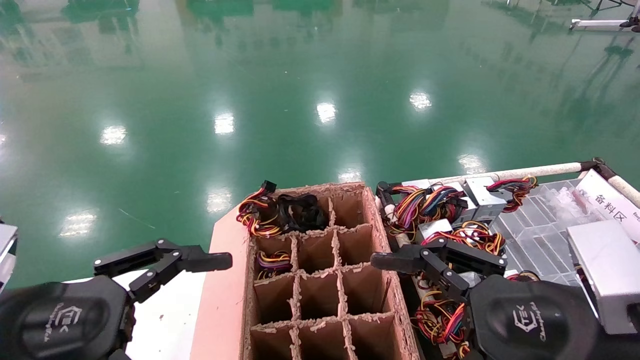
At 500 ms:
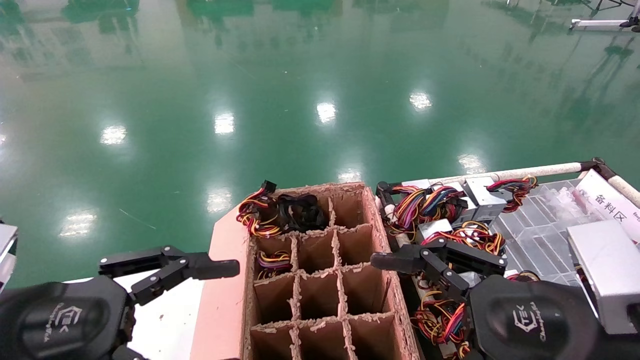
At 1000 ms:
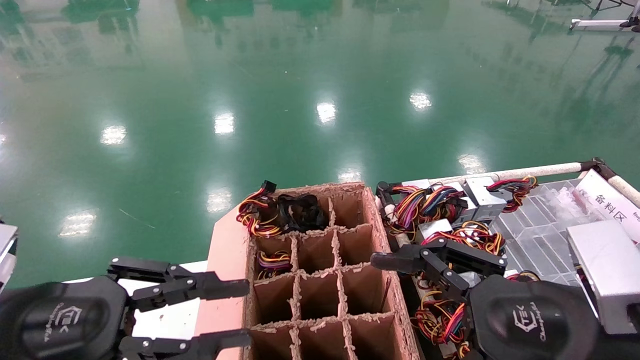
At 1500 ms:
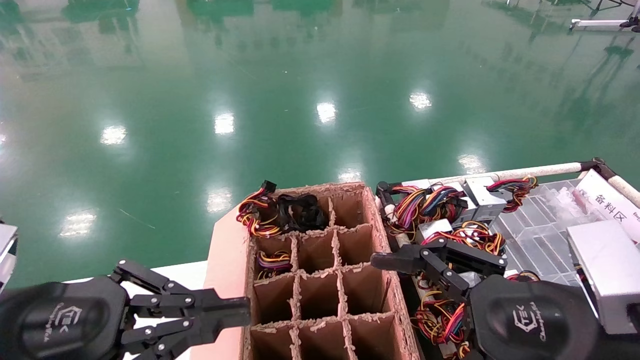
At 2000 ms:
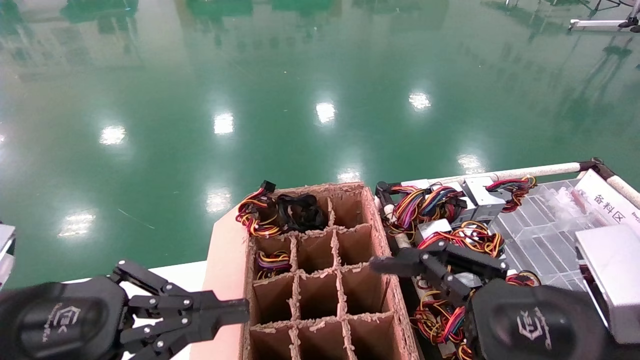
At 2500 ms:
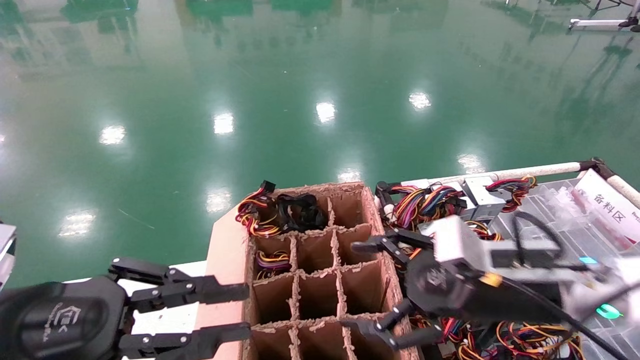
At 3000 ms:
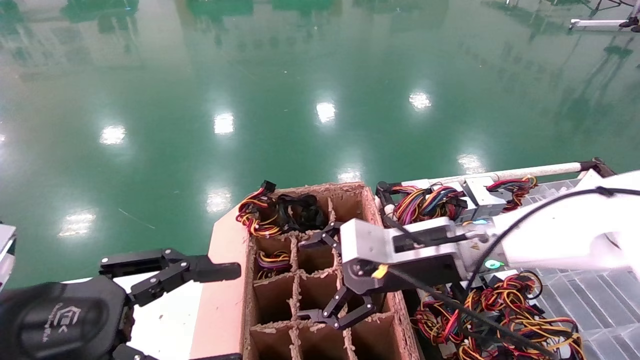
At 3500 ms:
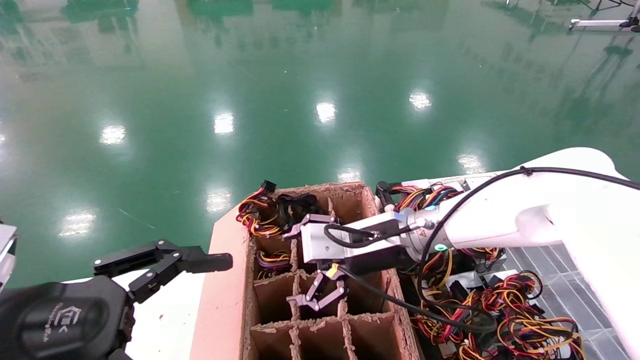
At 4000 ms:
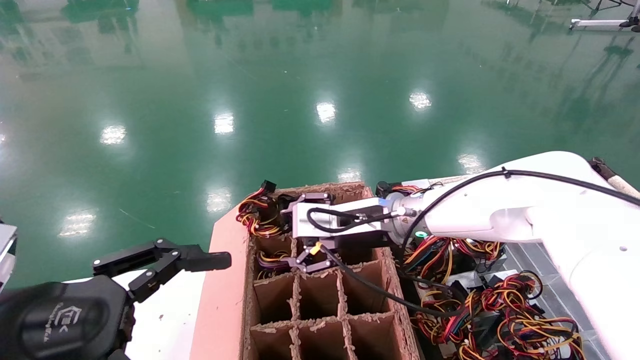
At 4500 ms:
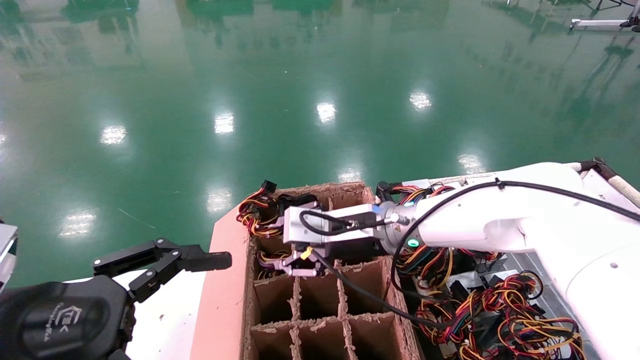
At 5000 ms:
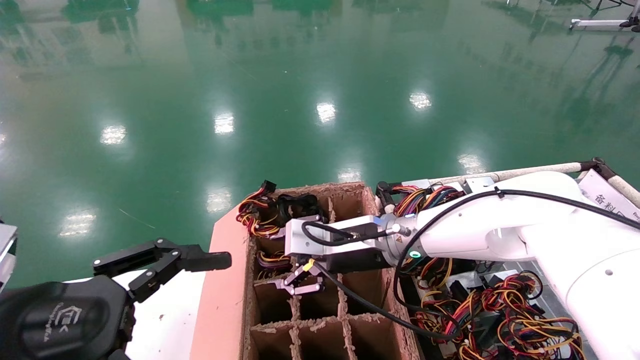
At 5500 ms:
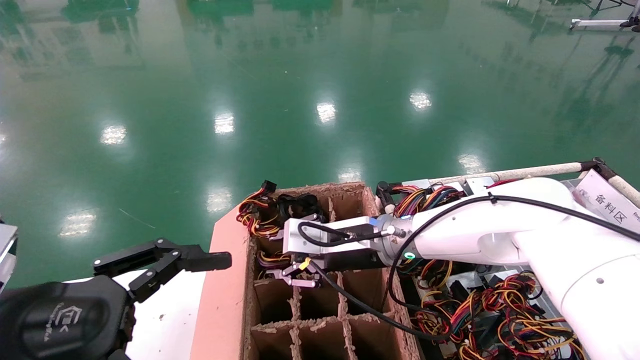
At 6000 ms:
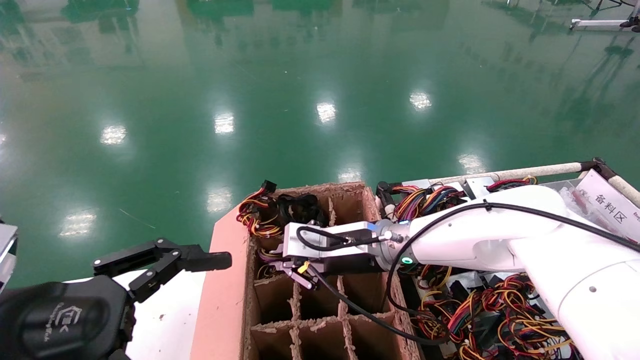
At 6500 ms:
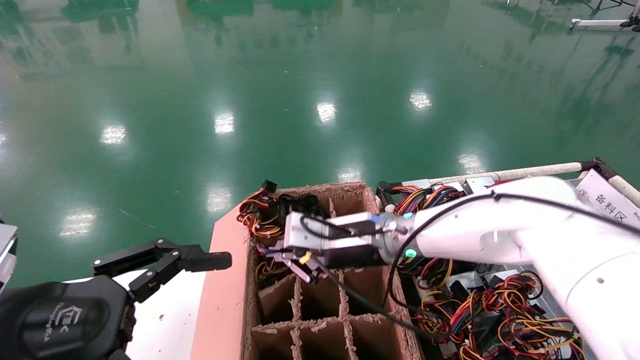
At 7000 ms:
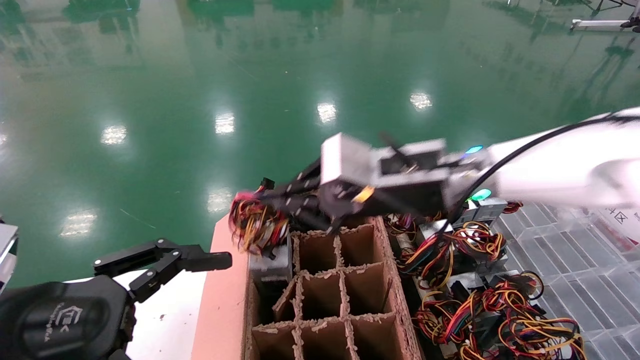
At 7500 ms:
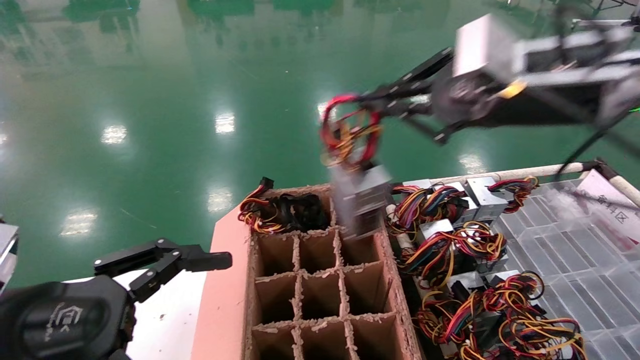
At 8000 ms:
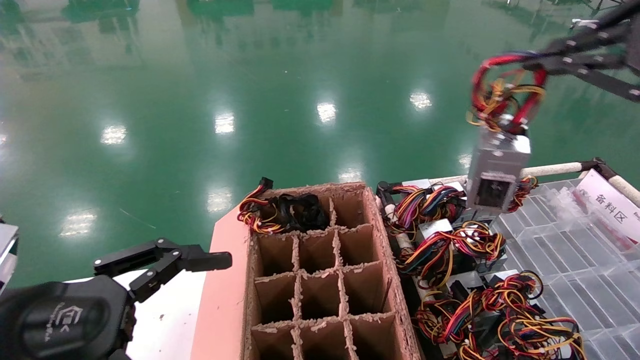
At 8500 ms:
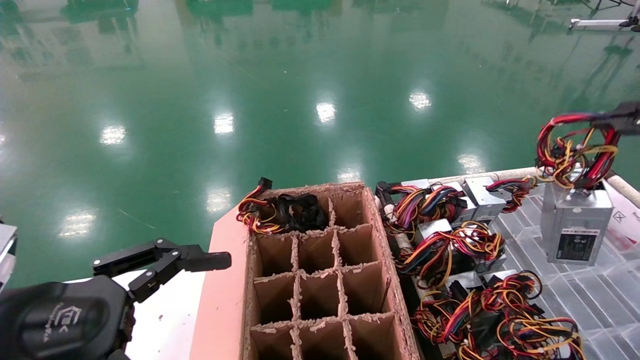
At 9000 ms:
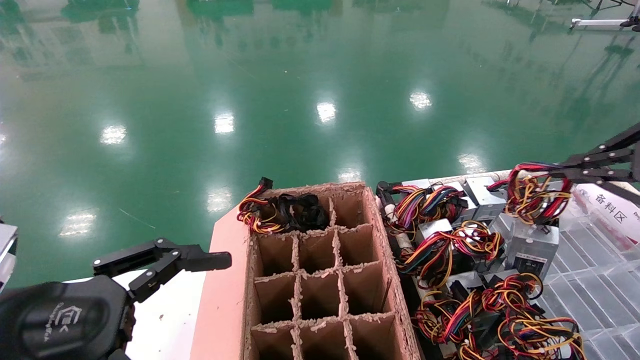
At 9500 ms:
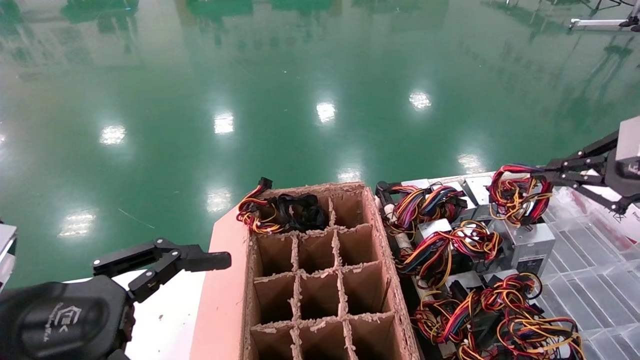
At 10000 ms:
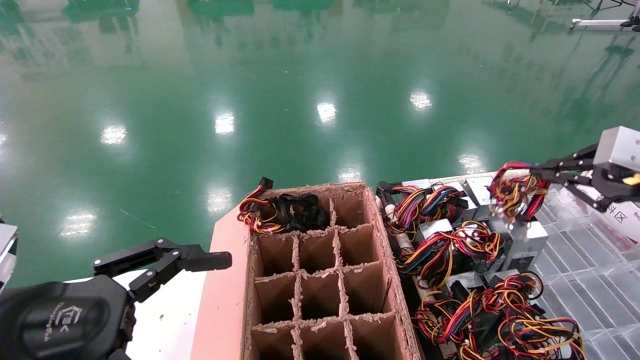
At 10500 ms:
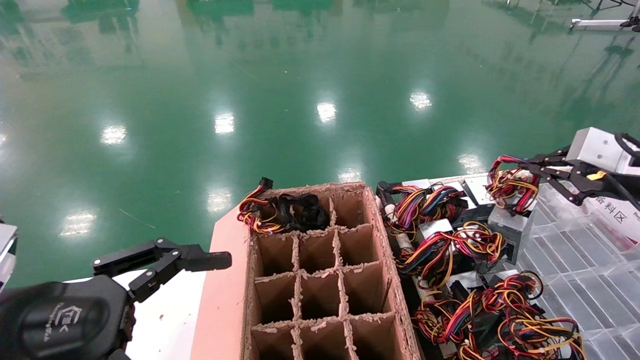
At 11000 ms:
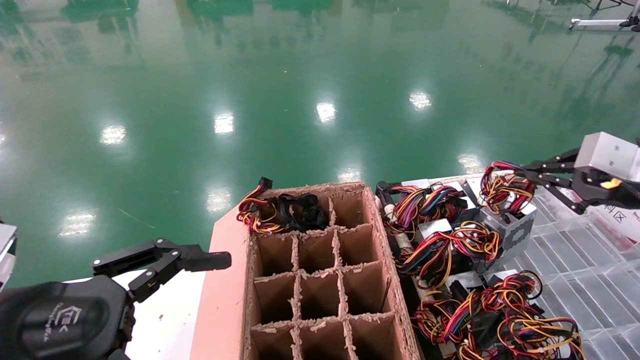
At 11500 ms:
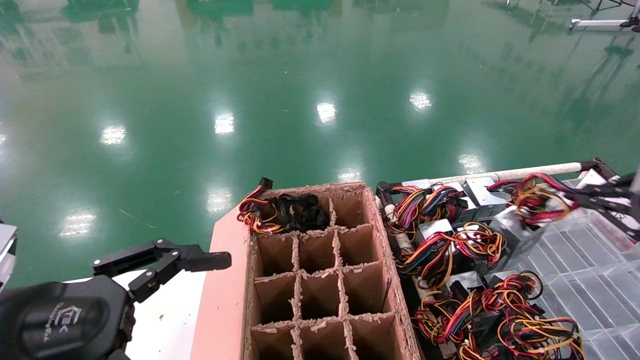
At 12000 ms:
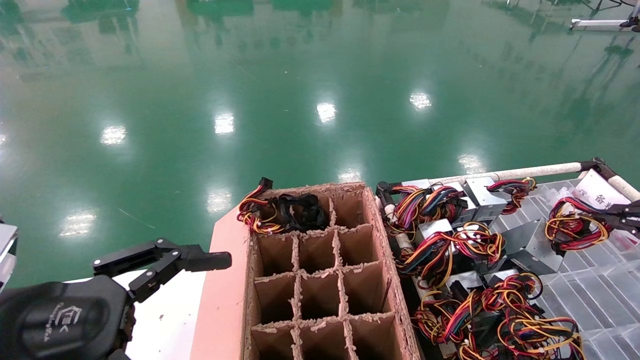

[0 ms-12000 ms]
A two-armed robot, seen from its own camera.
Step, 2500 ms to 6500 ms: Grab and lift the power supply from the large box.
0 ms to 2000 ms: The left gripper closes up.
2000 ms to 4000 ms: The left gripper opens up. The right gripper is displaced forward and to the left by about 25 cm.
4000 ms to 6000 ms: The right gripper closes.
6000 ms to 8000 ms: The right gripper is displaced to the right, upward and backward by approximately 40 cm.
8000 ms to 10000 ms: The right gripper heads downward, forward and to the right, covering about 20 cm.
10000 ms to 12000 ms: The right gripper moves to the right, approximately 5 cm.

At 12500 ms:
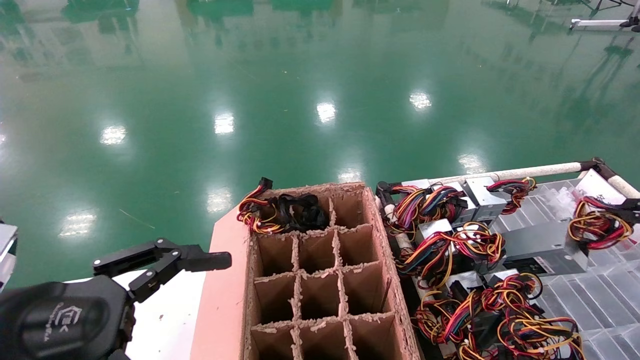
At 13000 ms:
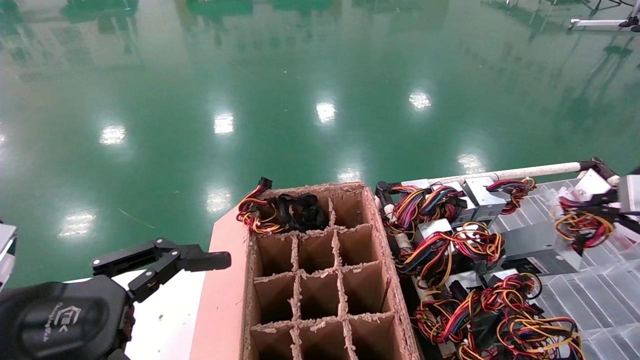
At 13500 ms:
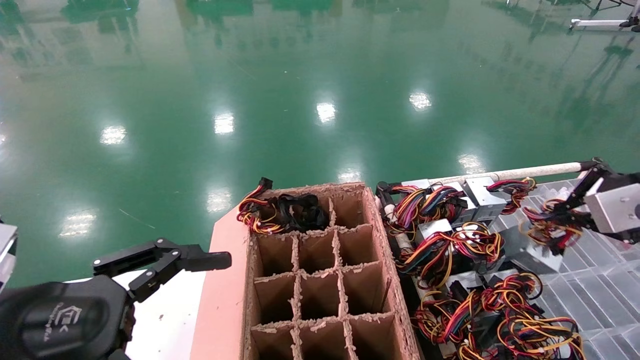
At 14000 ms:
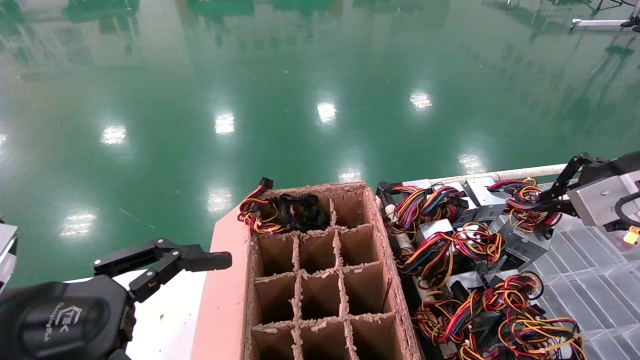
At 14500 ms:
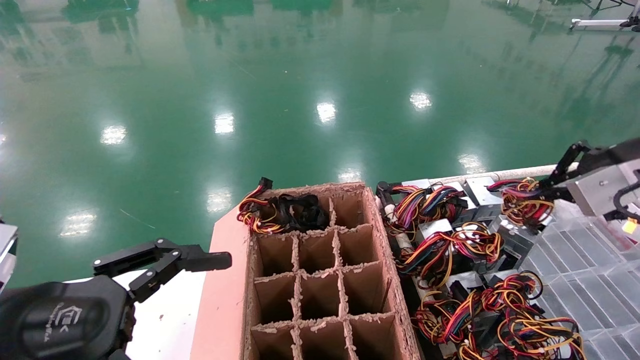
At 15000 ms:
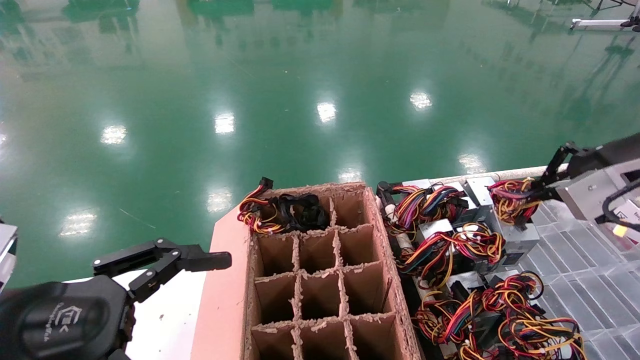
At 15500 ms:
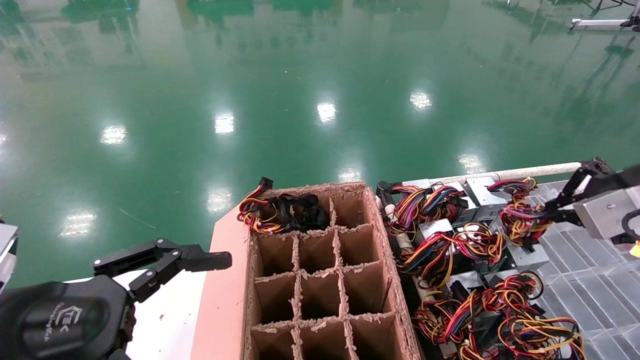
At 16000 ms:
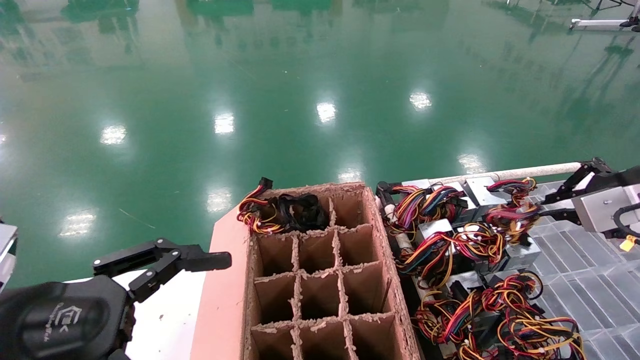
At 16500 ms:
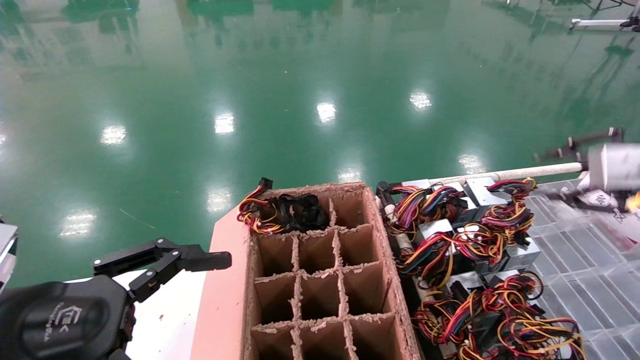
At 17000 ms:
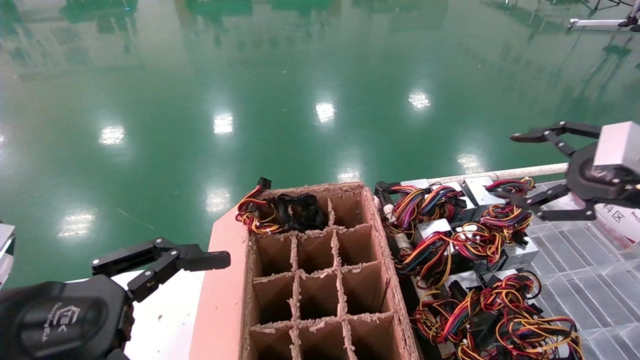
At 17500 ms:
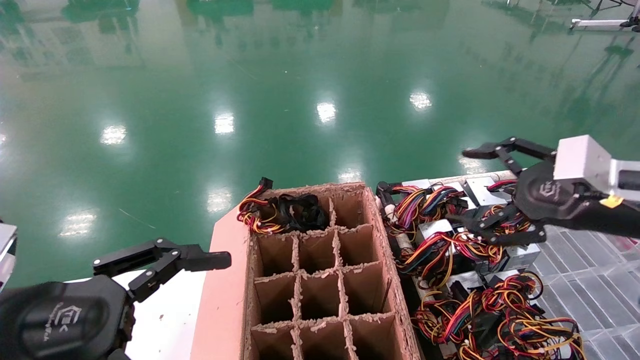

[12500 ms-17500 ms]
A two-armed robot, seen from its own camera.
Step, 12500 ms to 15500 ms: Place the power supply on the operating table.
12500 ms to 15000 ms: The right gripper shifts some 15 cm to the left and upward.
15000 ms to 17500 ms: The right gripper travels downward by roughly 5 cm, and opens.
